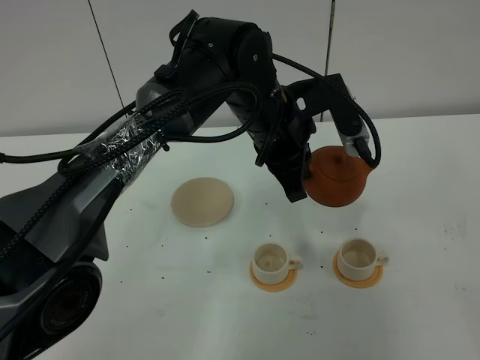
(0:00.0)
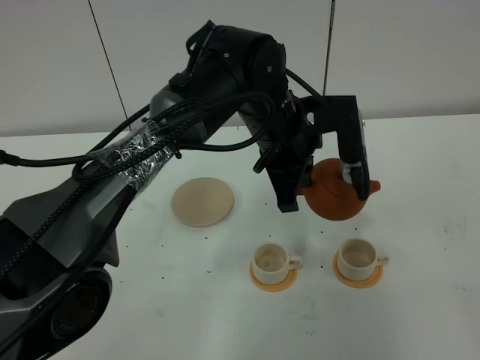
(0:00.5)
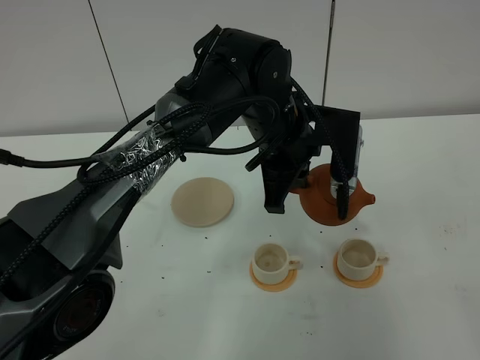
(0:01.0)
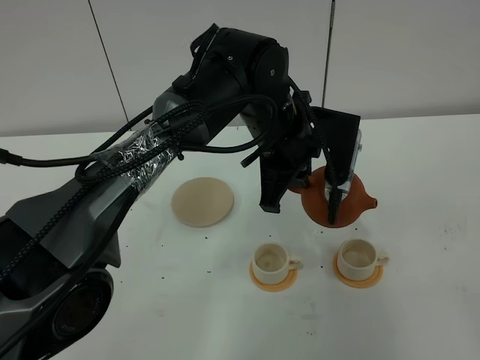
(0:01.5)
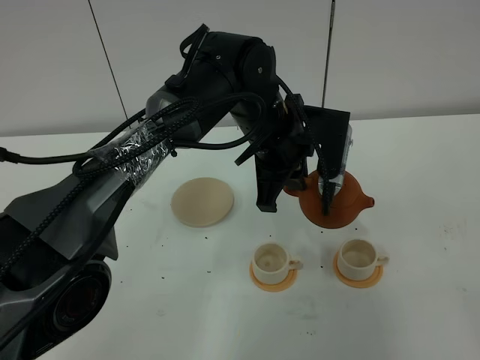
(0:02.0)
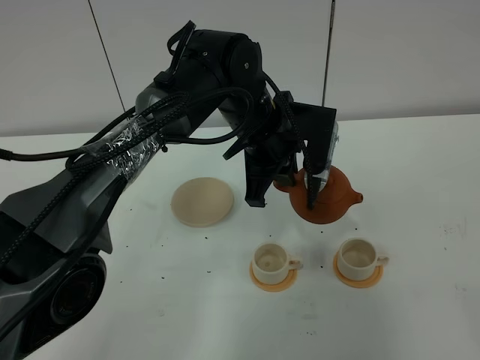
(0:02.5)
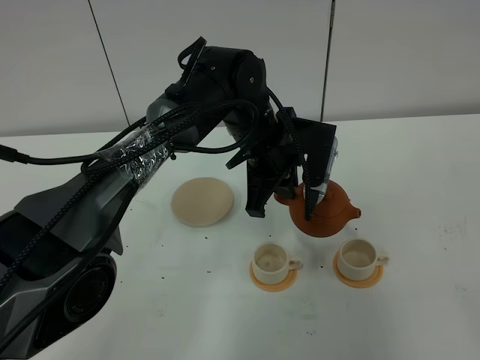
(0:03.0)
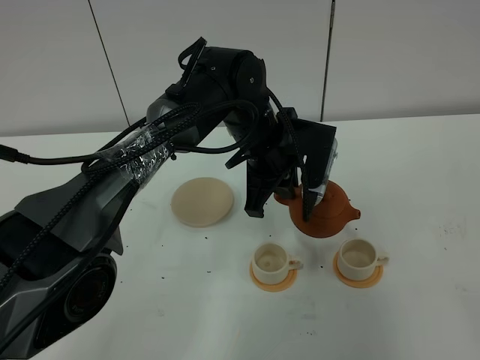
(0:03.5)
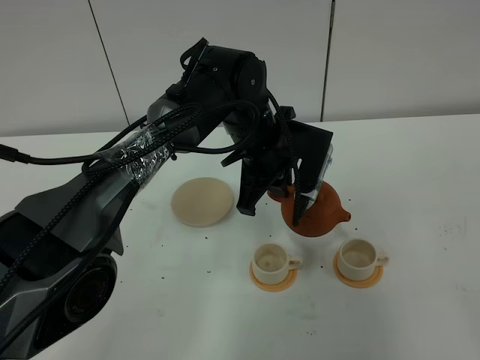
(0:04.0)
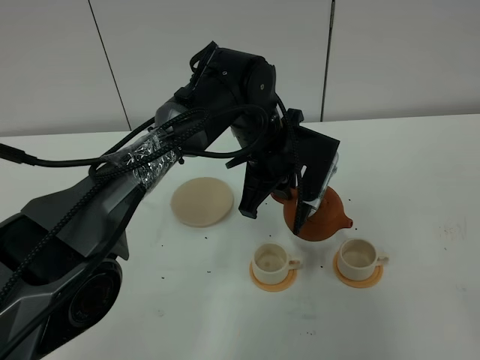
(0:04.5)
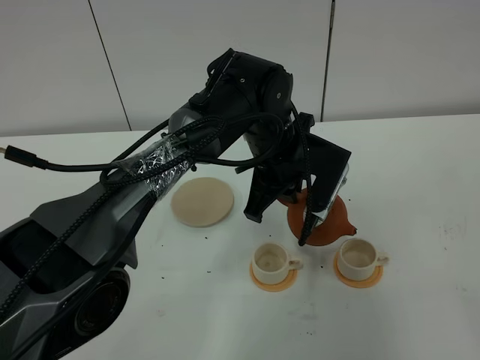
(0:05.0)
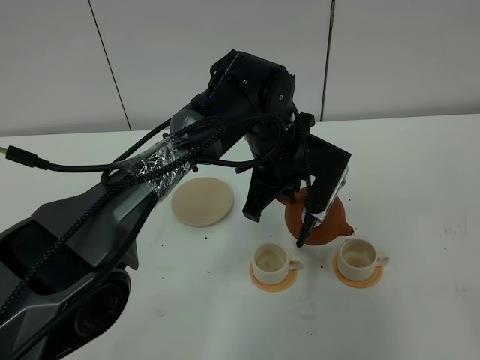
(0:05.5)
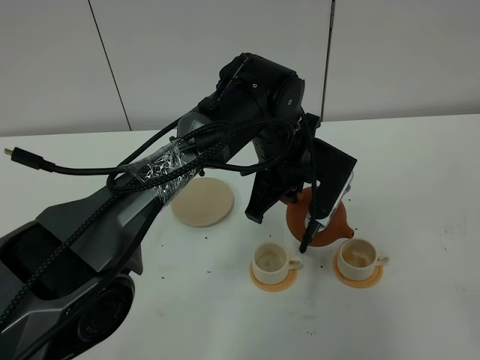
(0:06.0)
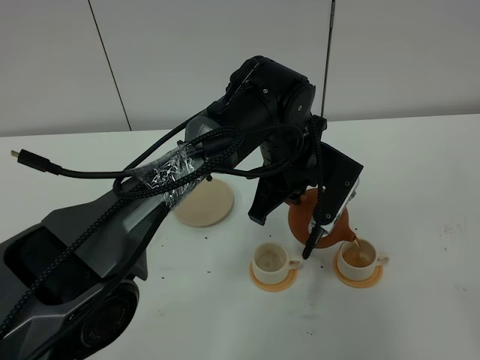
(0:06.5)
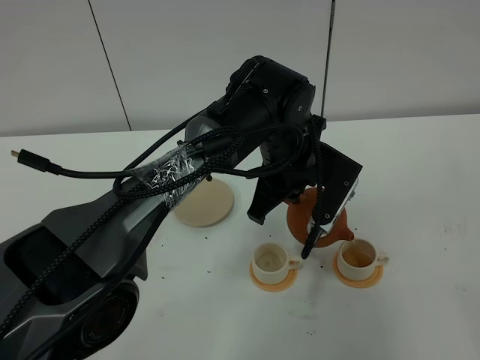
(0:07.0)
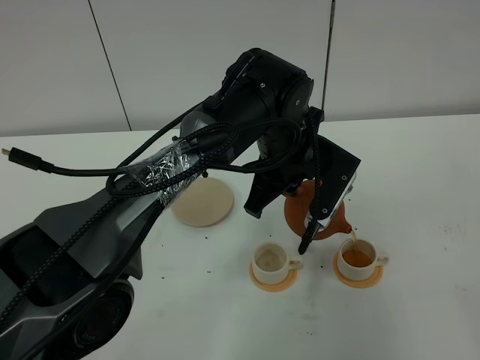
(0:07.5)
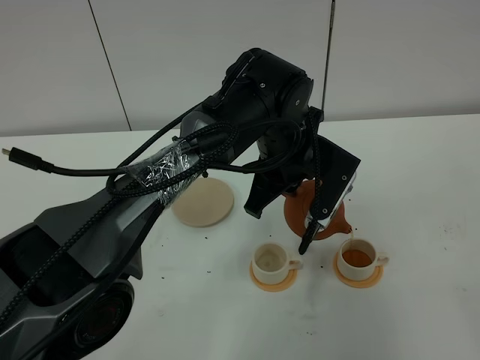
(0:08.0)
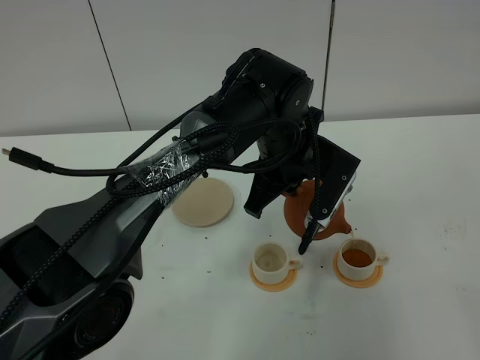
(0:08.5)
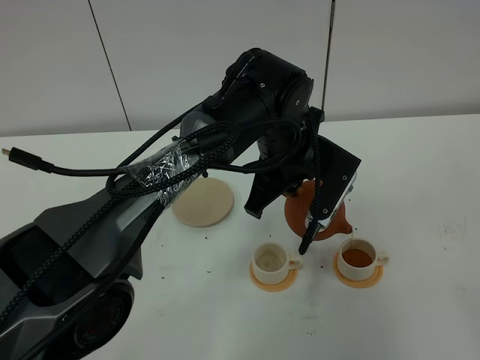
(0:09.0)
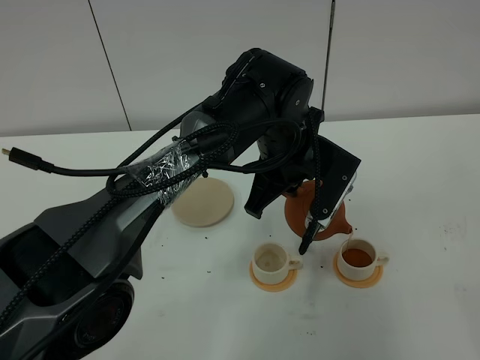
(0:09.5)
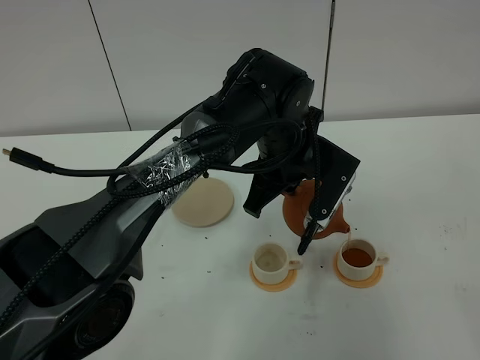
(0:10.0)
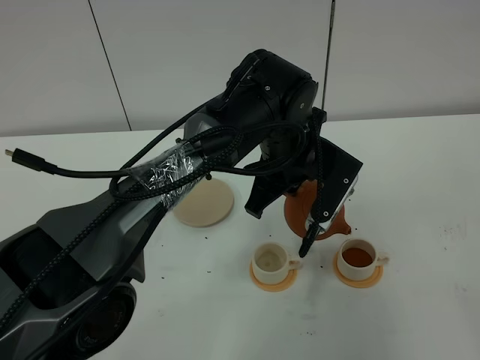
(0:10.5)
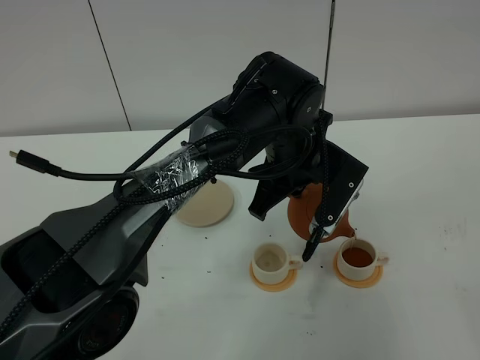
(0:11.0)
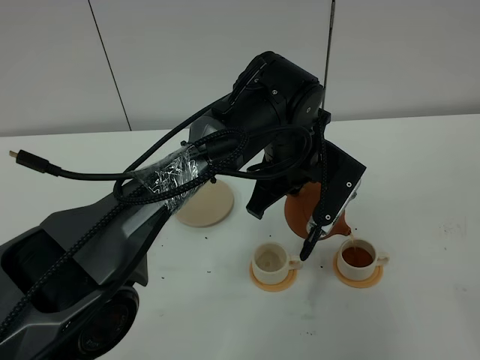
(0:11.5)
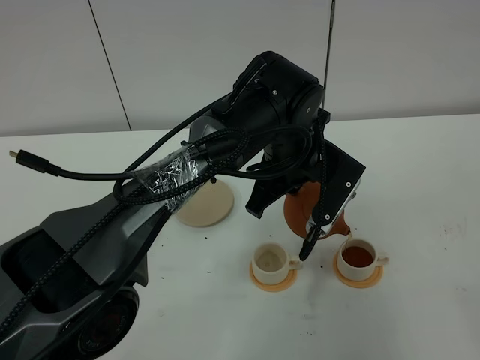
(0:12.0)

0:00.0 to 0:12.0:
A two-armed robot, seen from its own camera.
Task of the whole recording: grasp the brown teapot and pour the tea into the two white teacups one by one, put the brown teapot back in its original place.
0:02.0 to 0:04.0: The grippers stay close to where they were, moving slightly.
0:04.0 to 0:06.0: There are only small adjustments of the grippers.
0:06.0 to 0:08.0: The two grippers keep their place.
0:08.0 to 0:12.0: The two grippers keep their place.

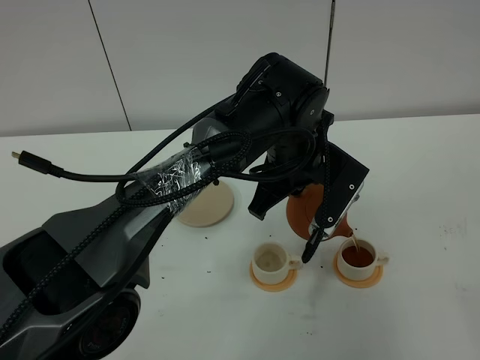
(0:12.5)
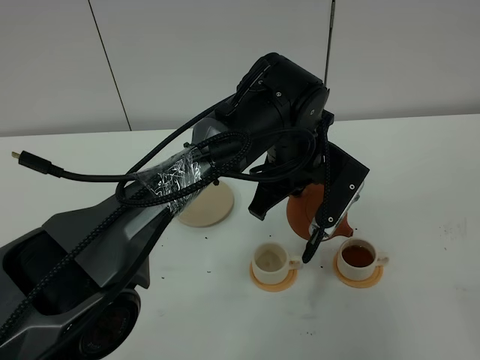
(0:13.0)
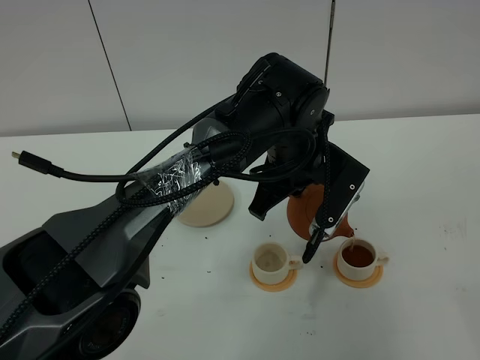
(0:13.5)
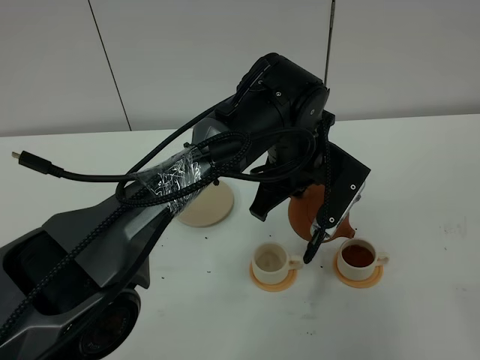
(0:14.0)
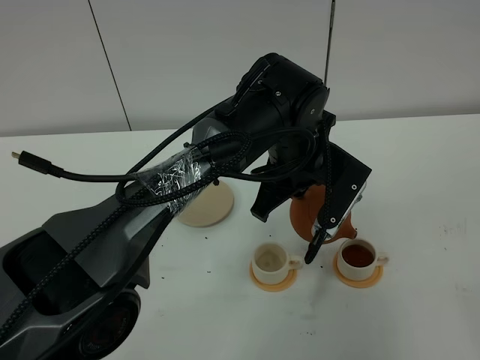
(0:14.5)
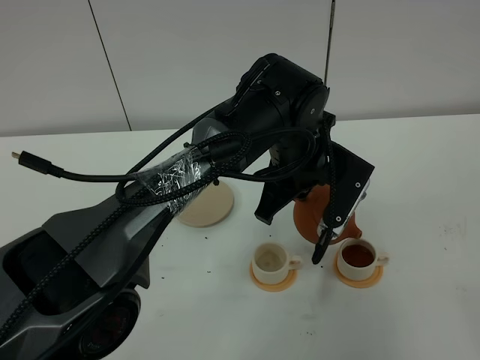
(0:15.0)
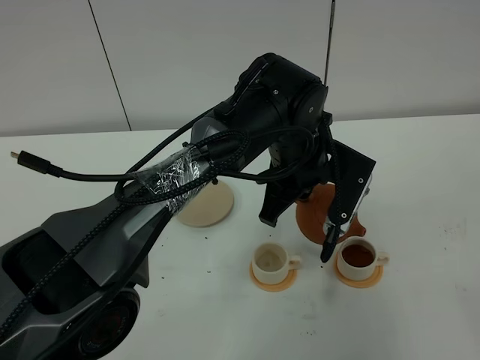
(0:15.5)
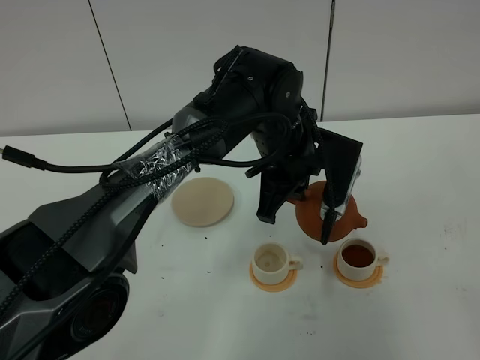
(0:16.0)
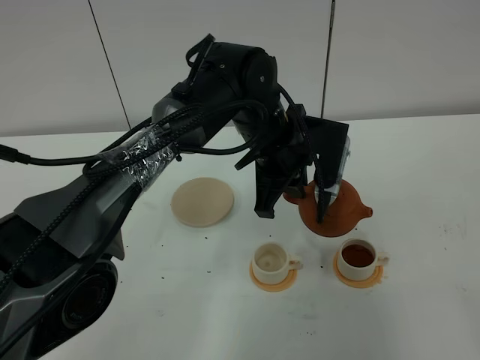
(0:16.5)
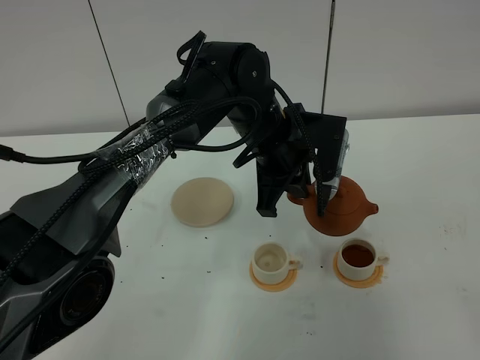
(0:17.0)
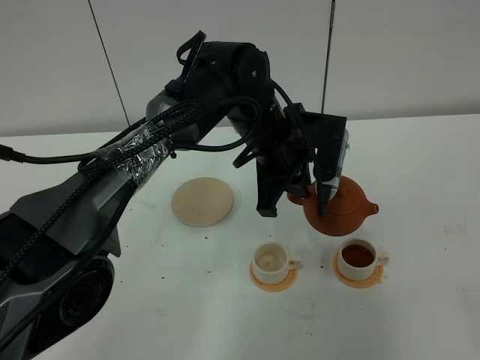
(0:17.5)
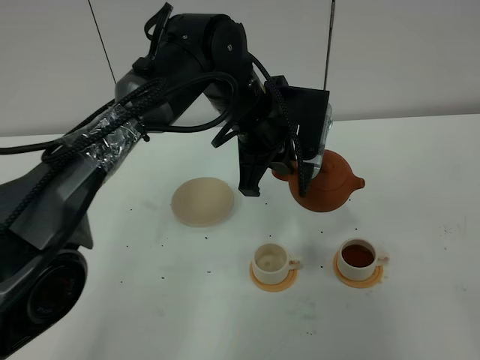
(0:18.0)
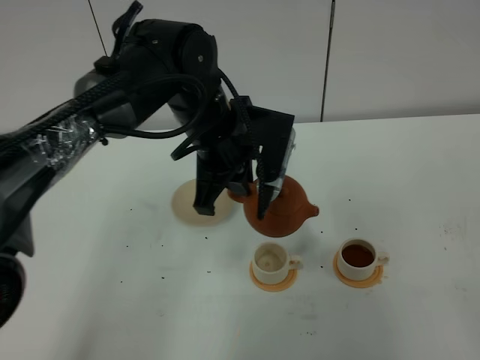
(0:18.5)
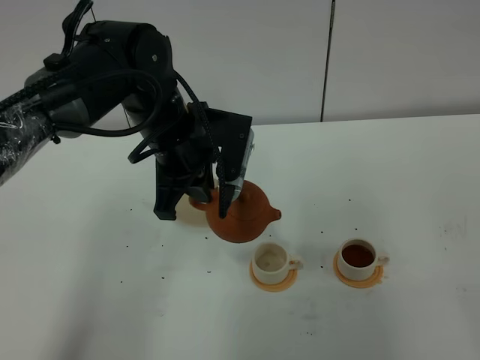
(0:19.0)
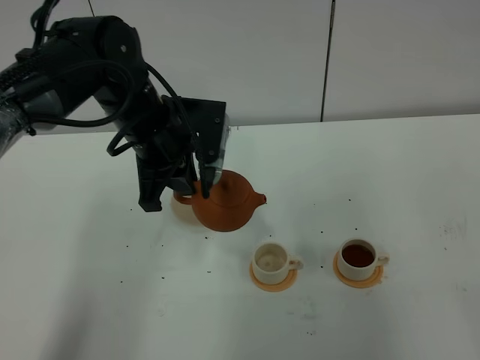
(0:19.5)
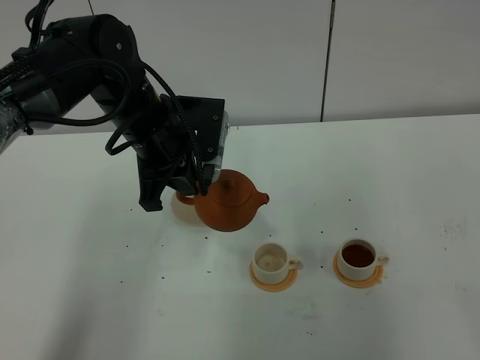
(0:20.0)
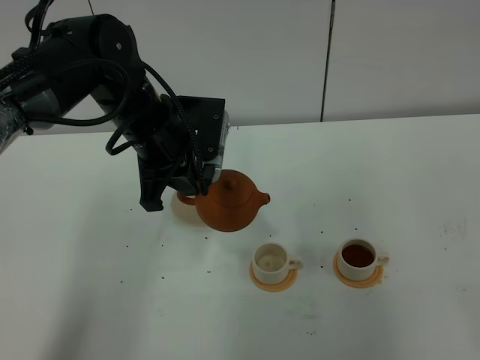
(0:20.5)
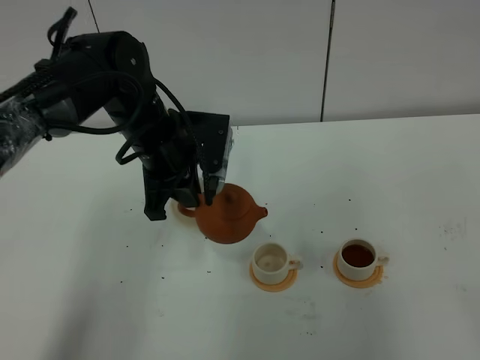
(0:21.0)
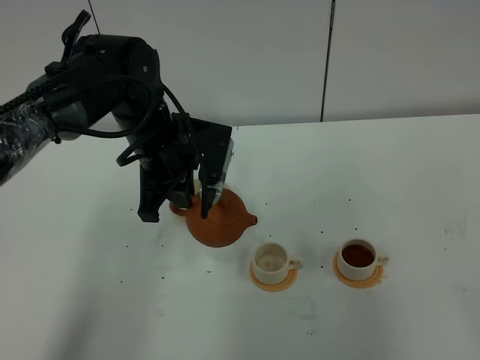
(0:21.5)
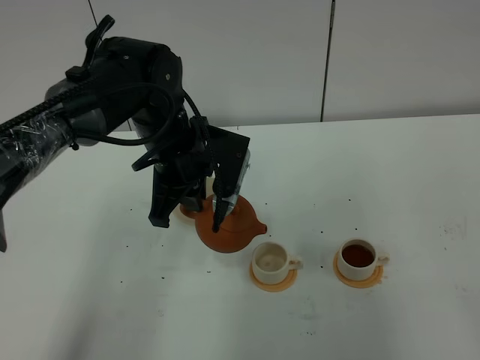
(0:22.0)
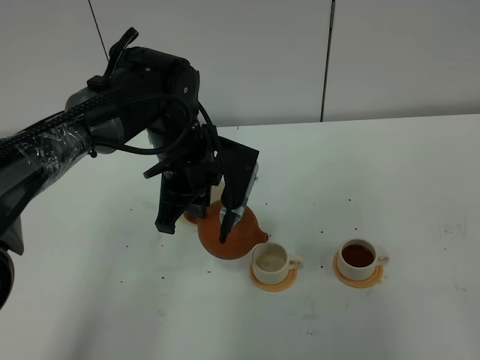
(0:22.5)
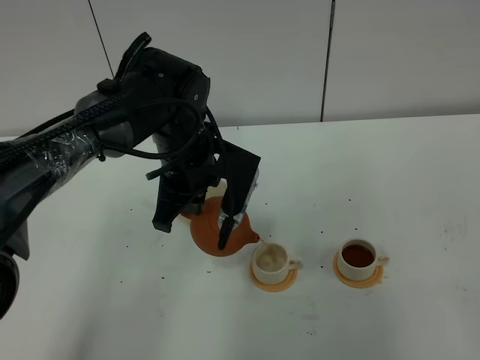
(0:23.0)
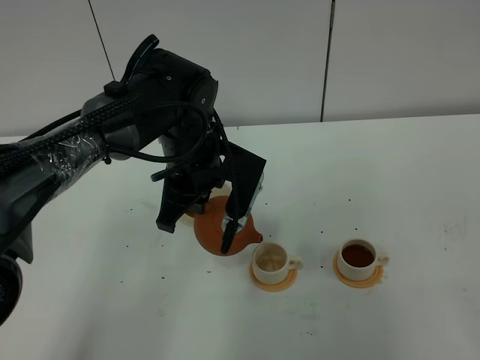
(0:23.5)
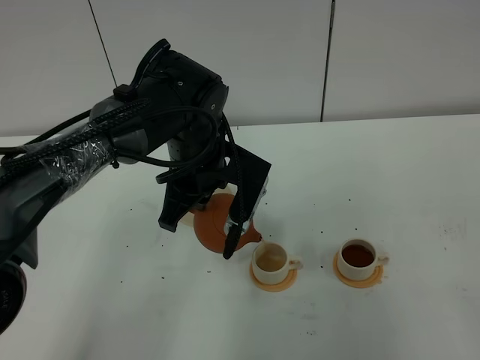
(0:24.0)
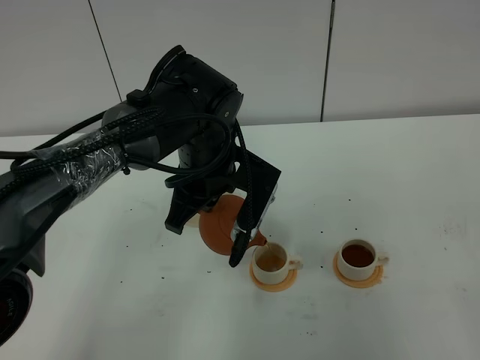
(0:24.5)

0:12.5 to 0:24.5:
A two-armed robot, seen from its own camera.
Task of the whole recording: grasp the brown teapot and pour the tea into the two white teacups one by one, put the brown teapot back in its original place.
Step, 0:12.5 to 0:16.0: Pour tea into the teacup with the left gripper.
0:12.5 to 0:14.5: The two grippers keep their place.
0:16.5 to 0:18.5: The left gripper travels to the left by roughly 5 cm.
0:18.5 to 0:20.5: The left gripper is displaced to the left by some 5 cm.
0:20.5 to 0:22.5: The left gripper ends up about 5 cm from where it was.
0:22.5 to 0:24.5: The grippers move only a little.

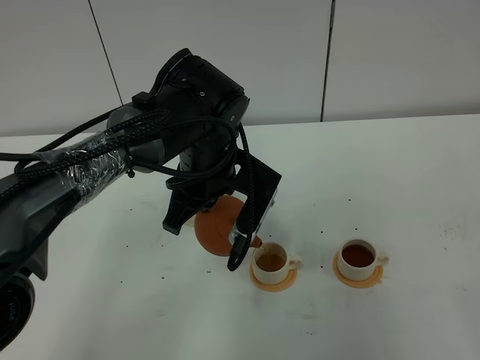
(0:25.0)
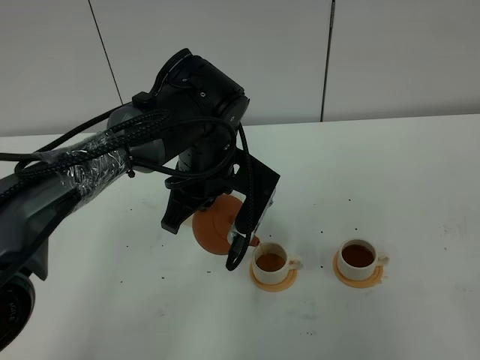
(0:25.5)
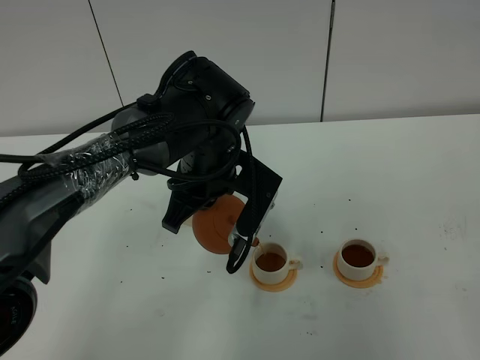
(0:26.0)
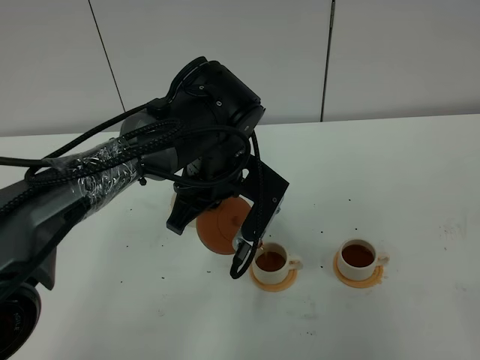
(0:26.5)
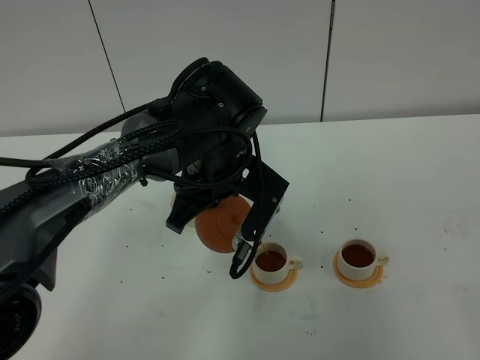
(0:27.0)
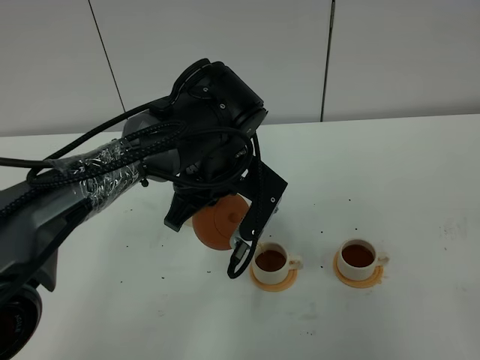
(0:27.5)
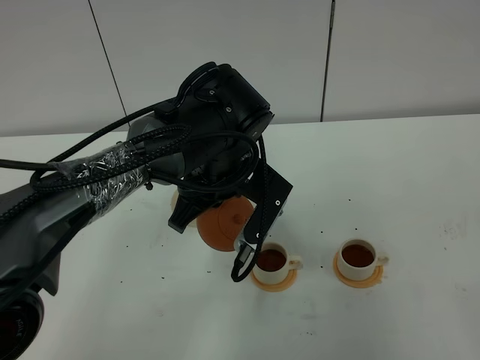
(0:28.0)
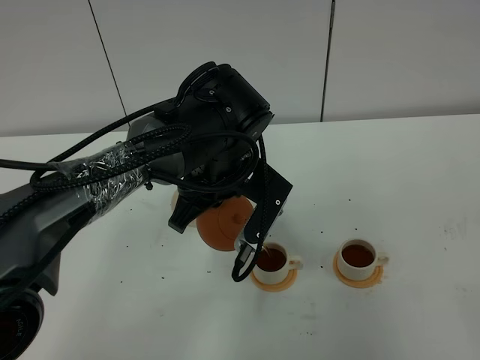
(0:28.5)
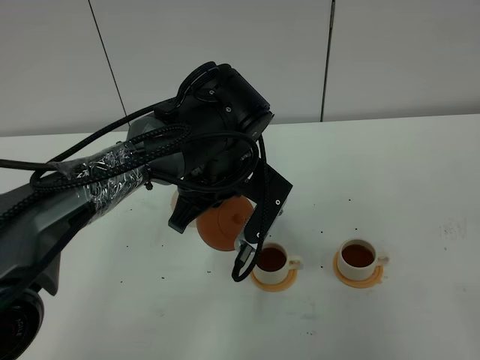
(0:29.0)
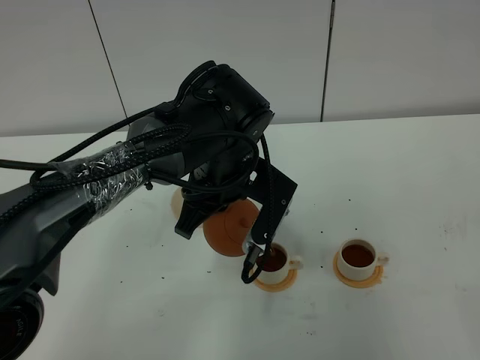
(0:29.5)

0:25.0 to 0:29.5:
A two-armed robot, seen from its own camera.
Task of the whole recording: grasp the brown teapot and pour the tea into the two white teacups one by one, put the brown teapot back in its original place.
0:25.0 to 0:27.0: The grippers move only a little.
0:27.0 to 0:29.5: Both grippers stay put.
